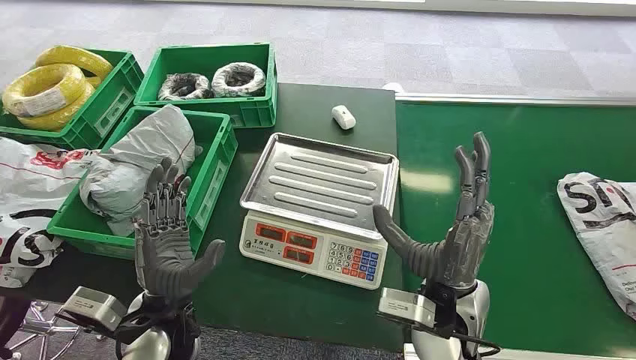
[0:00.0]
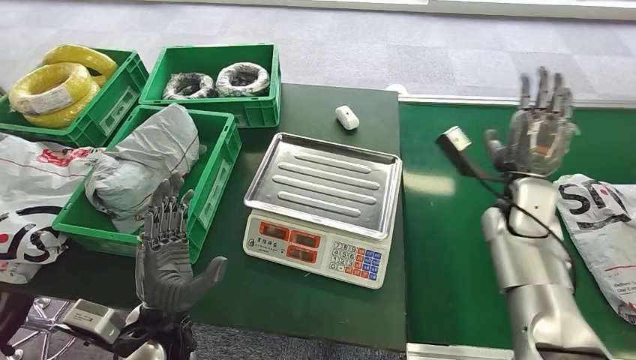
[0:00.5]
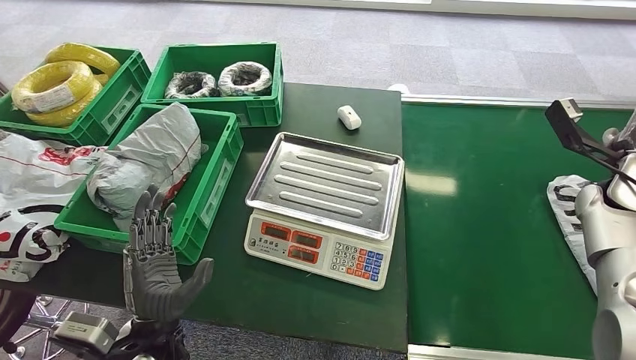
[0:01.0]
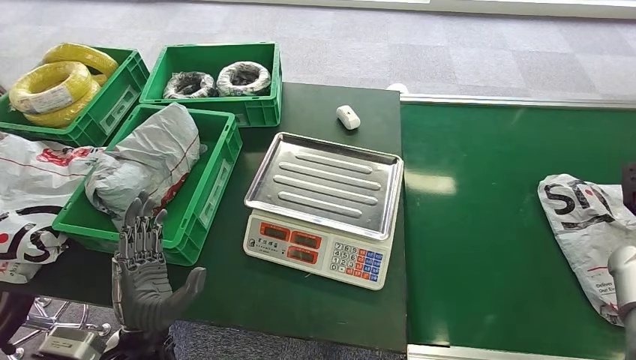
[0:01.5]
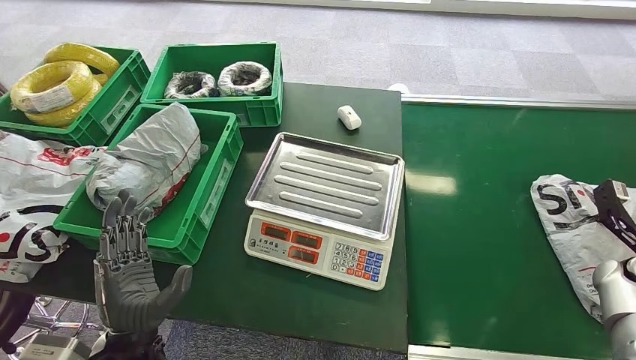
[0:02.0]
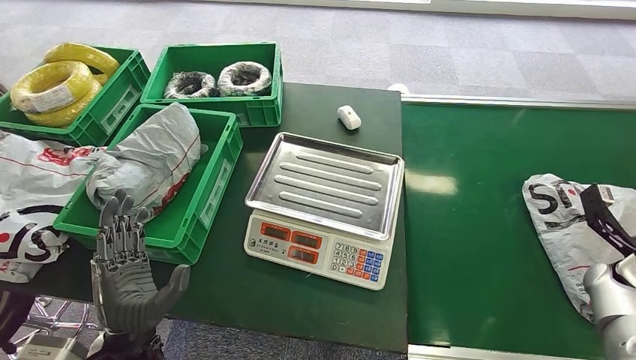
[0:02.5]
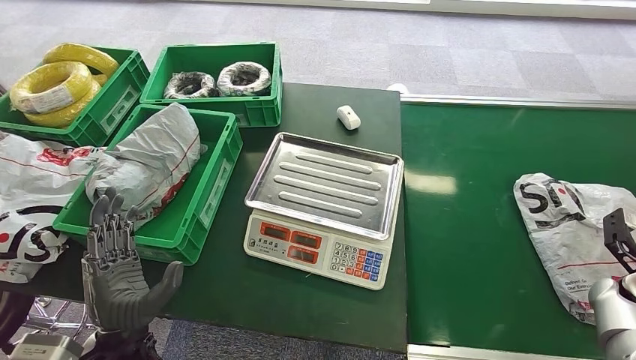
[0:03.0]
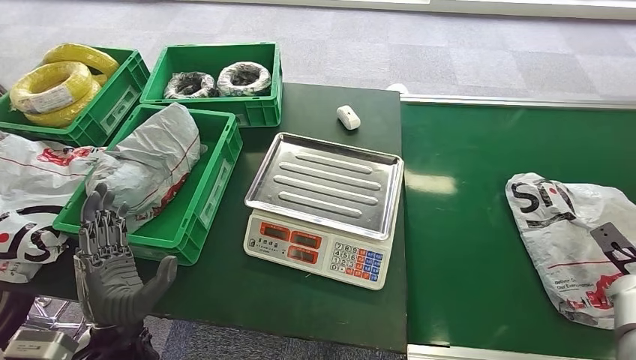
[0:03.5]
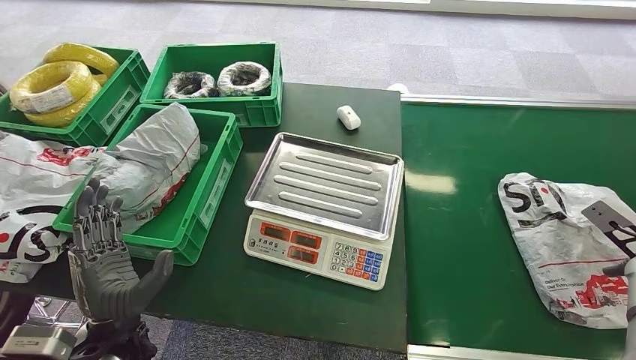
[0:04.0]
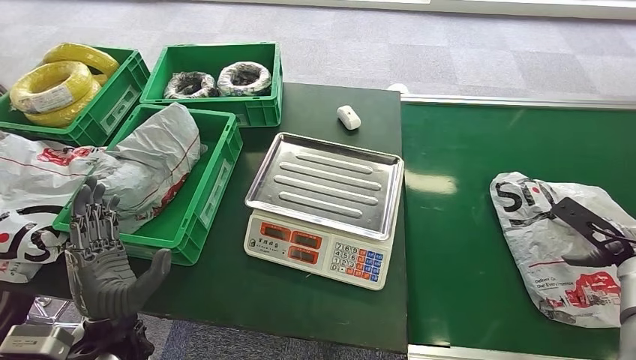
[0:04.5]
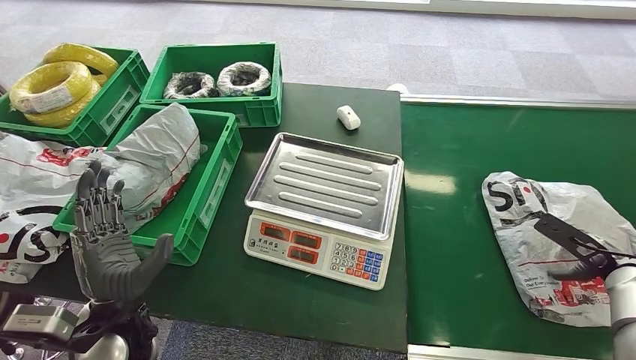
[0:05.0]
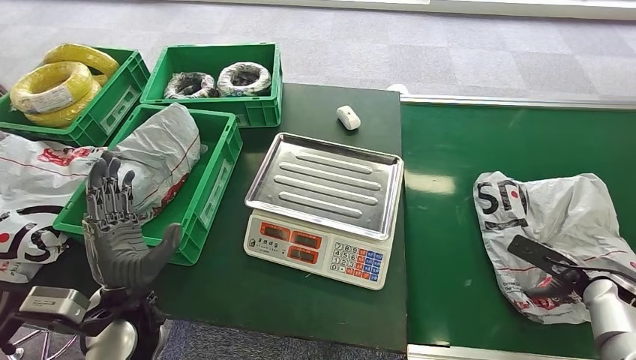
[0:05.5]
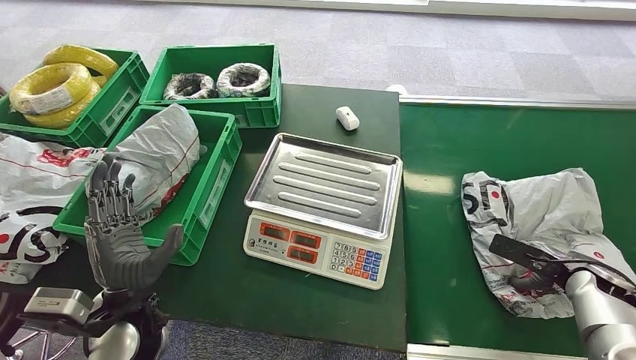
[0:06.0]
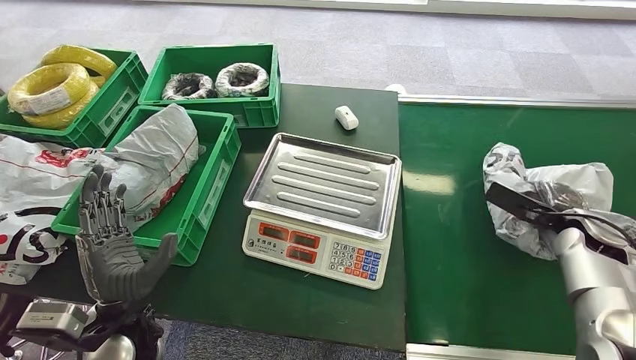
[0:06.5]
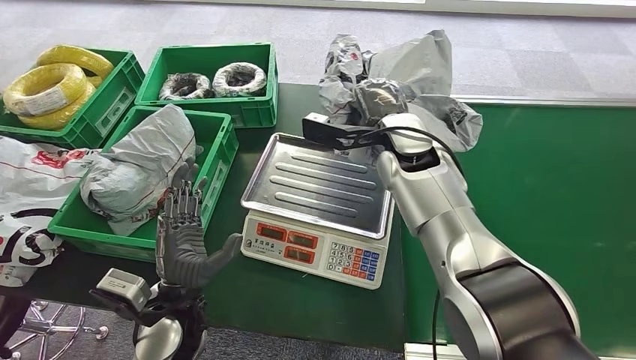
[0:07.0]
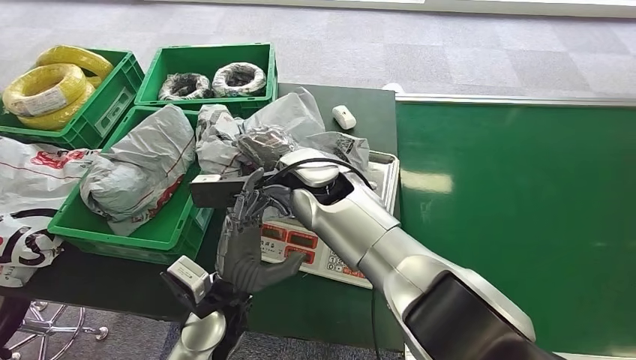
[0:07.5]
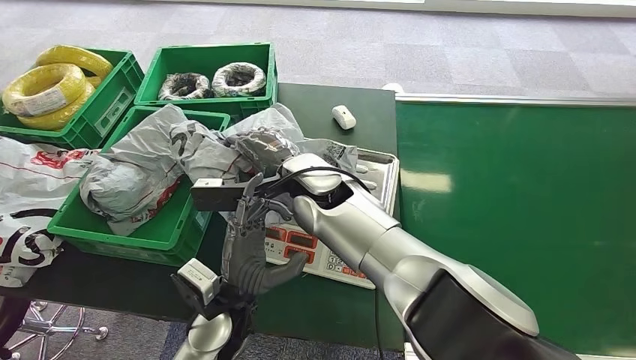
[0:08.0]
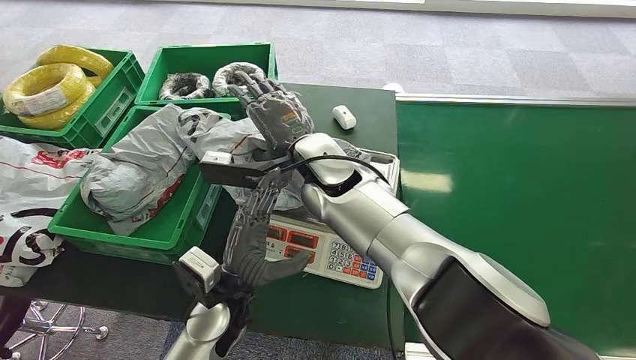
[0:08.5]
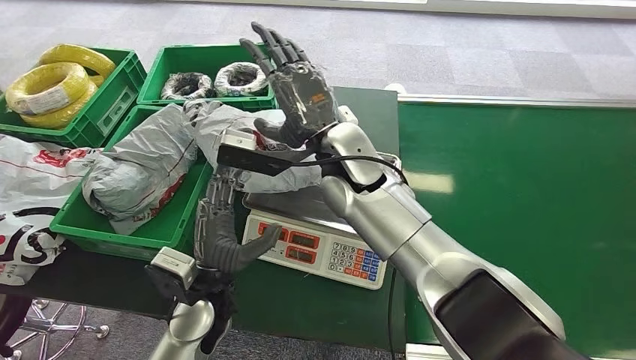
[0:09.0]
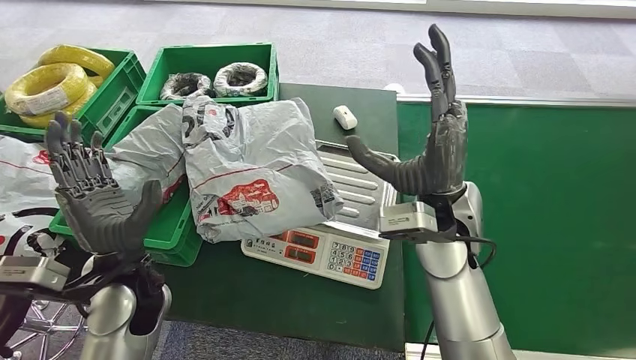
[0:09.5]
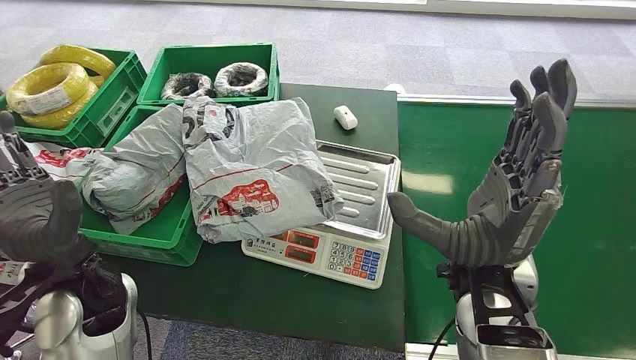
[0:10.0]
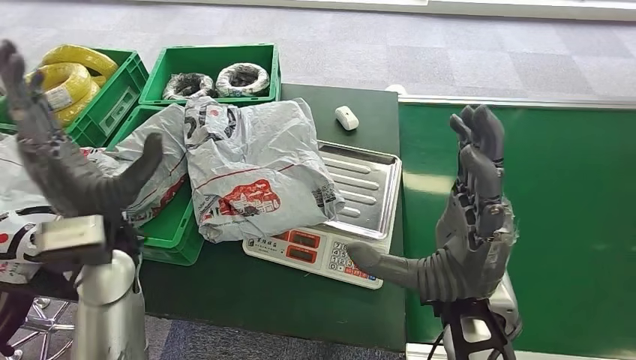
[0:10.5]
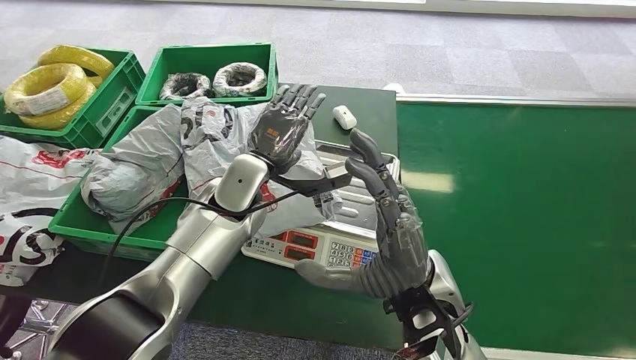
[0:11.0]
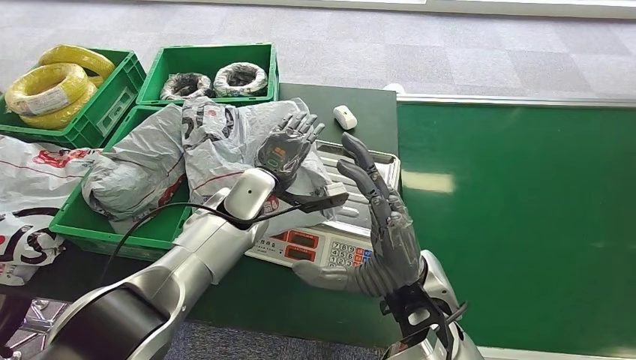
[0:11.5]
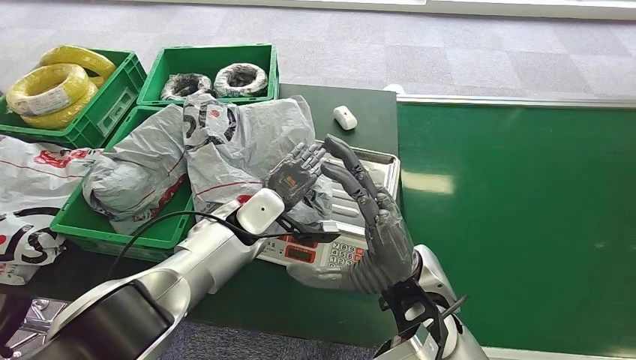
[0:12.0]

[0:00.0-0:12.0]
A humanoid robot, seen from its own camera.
Step, 0:00.0 to 0:06.5: Pick up the package from the conveyor belt.
Step, 0:07.0 to 0:09.5: Place the package onto the inbound machine.
0:04.0 to 0:06.0: The right hand heads downward and to the left, covering roughly 10 cm.

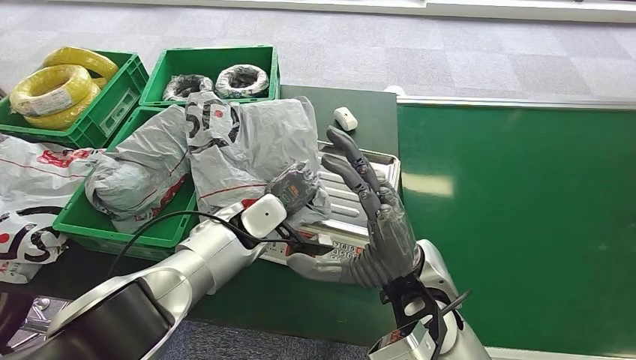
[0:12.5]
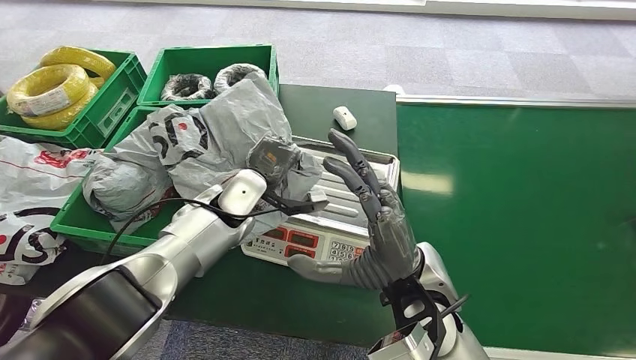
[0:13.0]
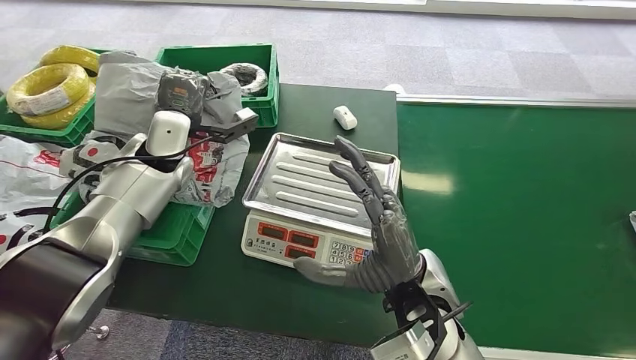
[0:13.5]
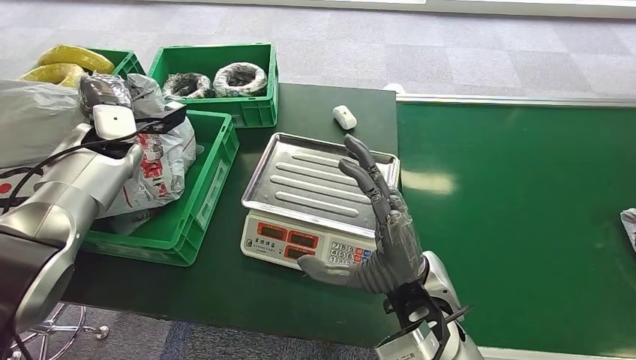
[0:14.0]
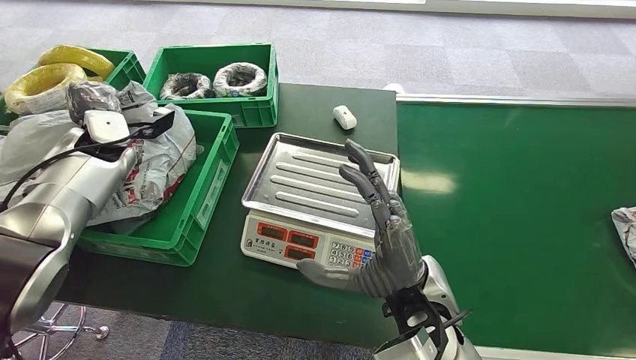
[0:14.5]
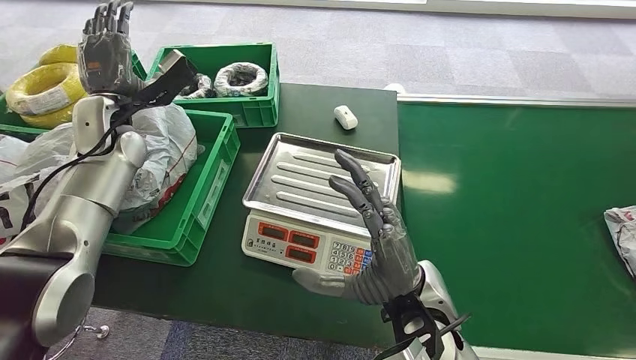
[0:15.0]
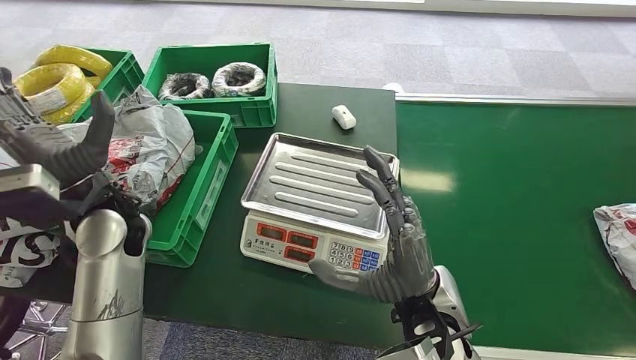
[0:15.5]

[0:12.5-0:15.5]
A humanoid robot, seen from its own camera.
Step, 0:14.5 to 0:15.5: Place the package into the parcel locker.
